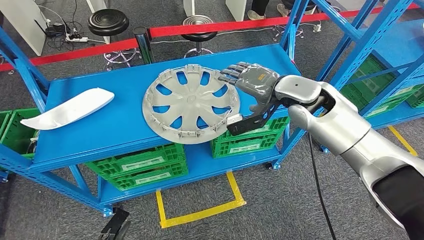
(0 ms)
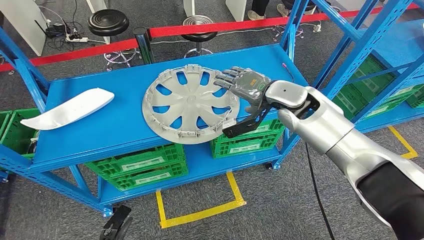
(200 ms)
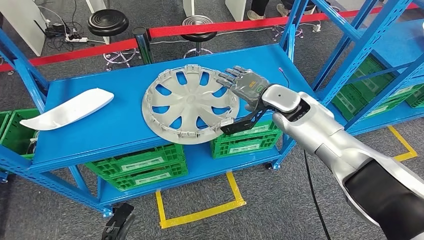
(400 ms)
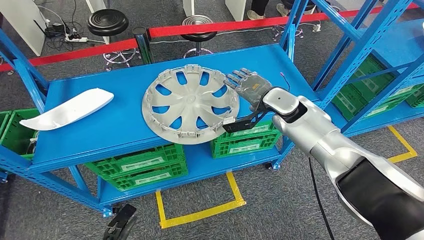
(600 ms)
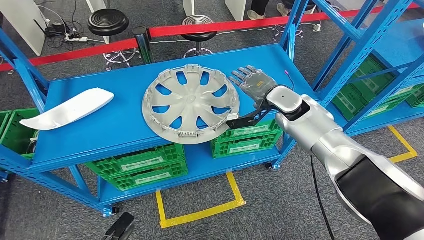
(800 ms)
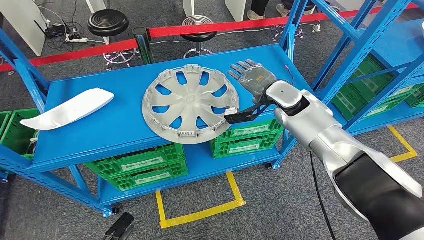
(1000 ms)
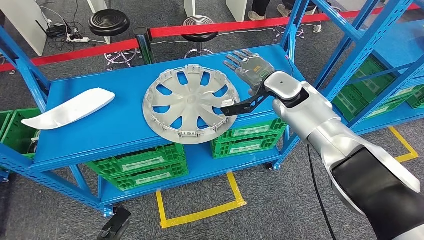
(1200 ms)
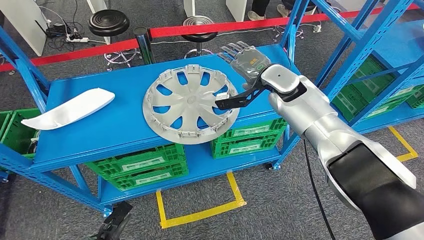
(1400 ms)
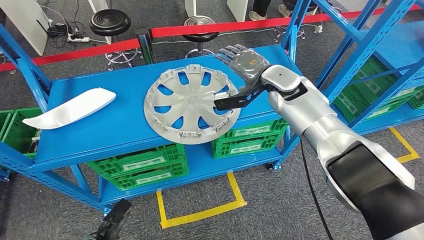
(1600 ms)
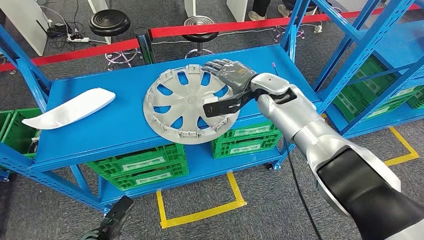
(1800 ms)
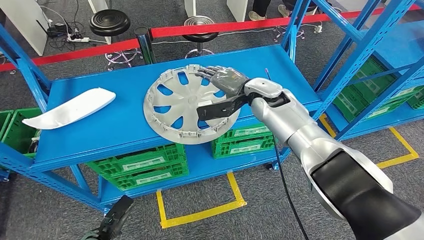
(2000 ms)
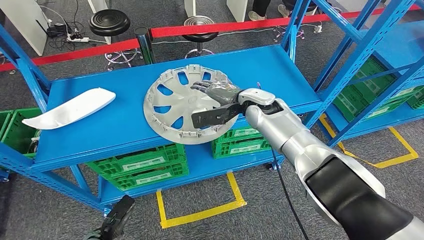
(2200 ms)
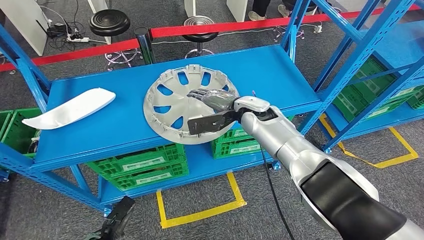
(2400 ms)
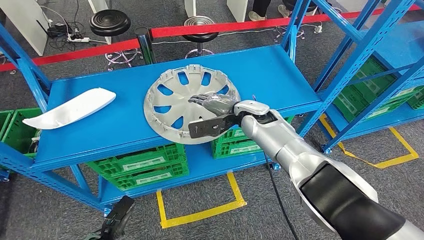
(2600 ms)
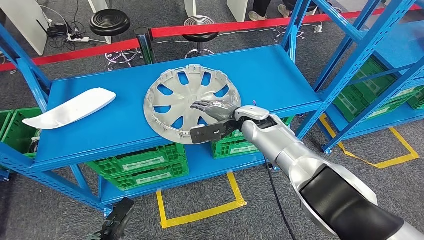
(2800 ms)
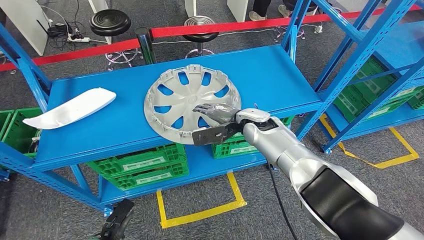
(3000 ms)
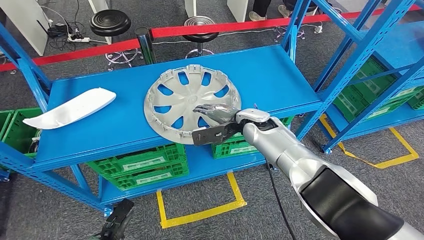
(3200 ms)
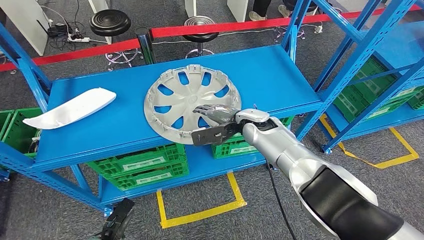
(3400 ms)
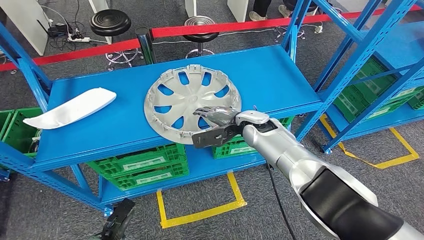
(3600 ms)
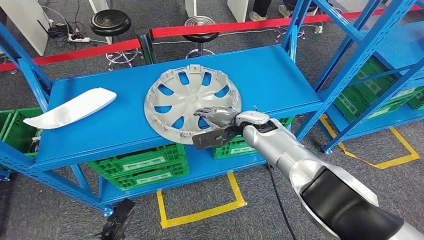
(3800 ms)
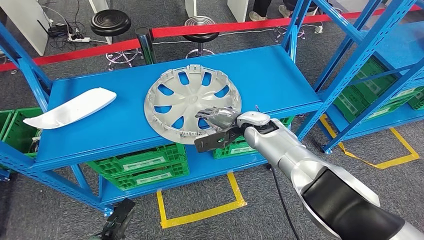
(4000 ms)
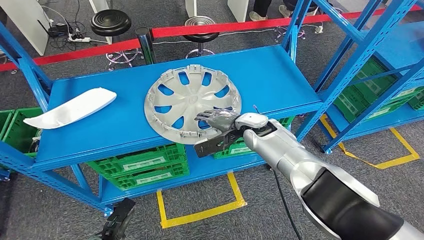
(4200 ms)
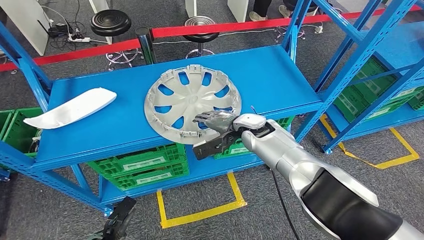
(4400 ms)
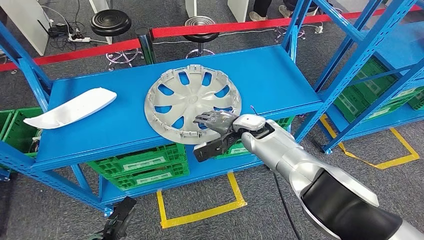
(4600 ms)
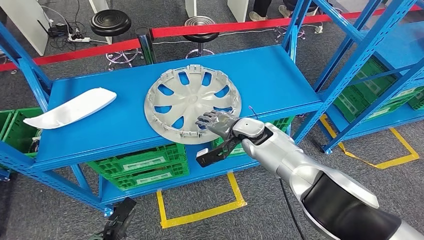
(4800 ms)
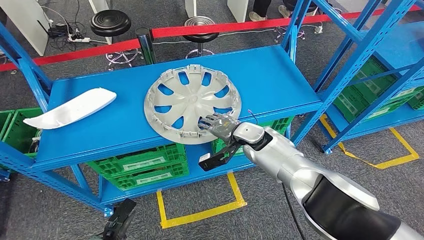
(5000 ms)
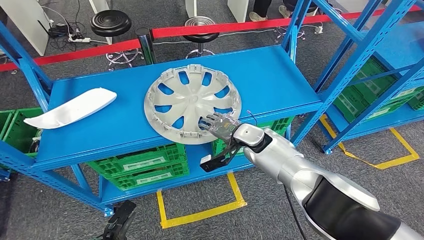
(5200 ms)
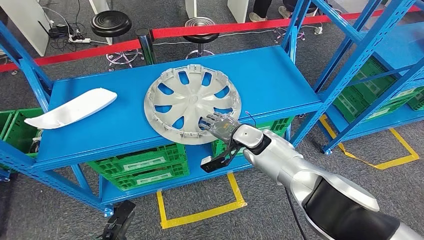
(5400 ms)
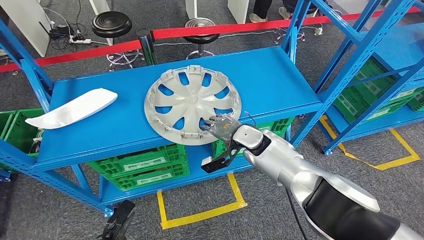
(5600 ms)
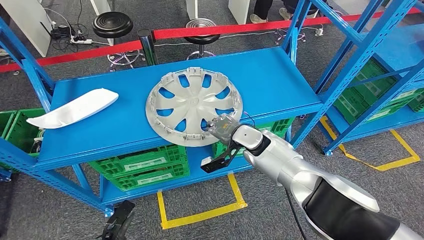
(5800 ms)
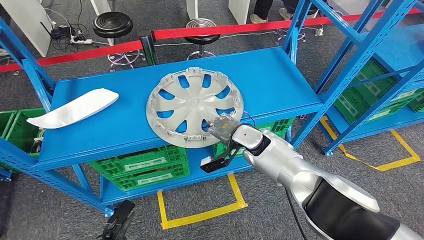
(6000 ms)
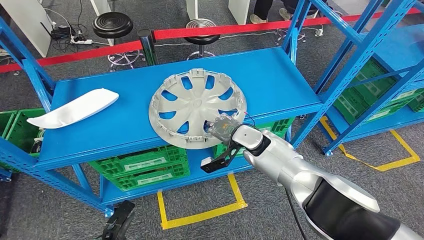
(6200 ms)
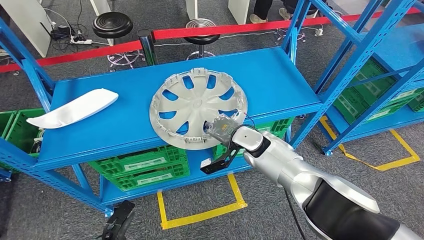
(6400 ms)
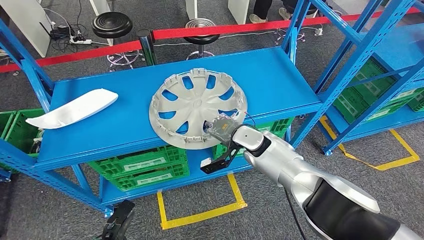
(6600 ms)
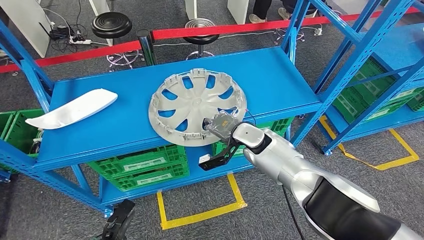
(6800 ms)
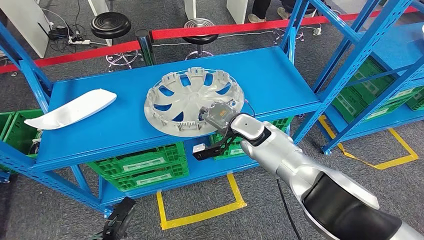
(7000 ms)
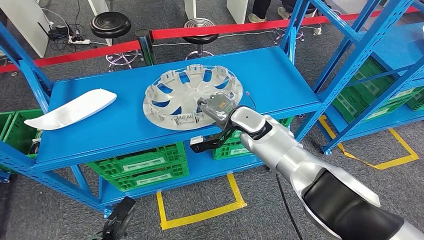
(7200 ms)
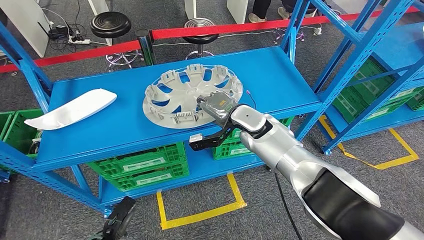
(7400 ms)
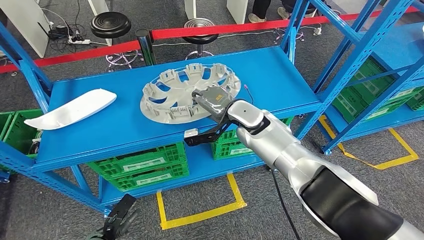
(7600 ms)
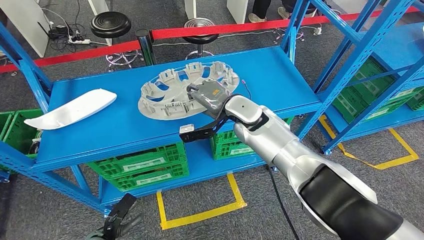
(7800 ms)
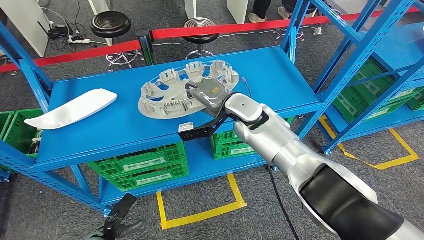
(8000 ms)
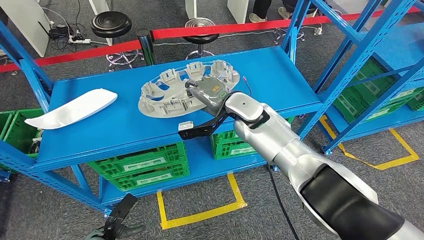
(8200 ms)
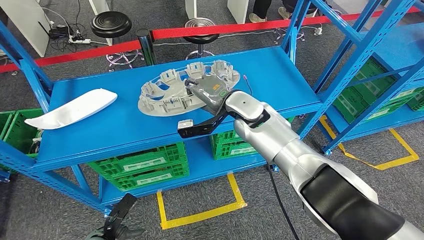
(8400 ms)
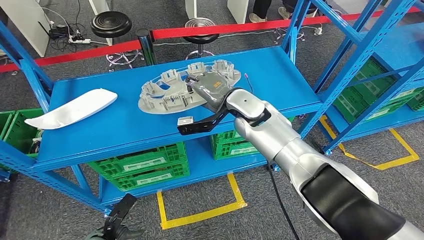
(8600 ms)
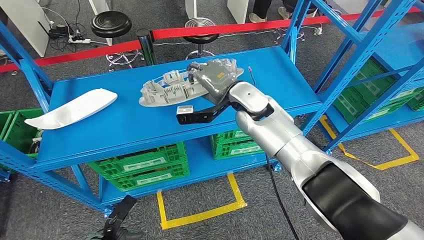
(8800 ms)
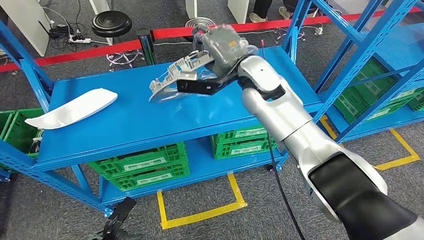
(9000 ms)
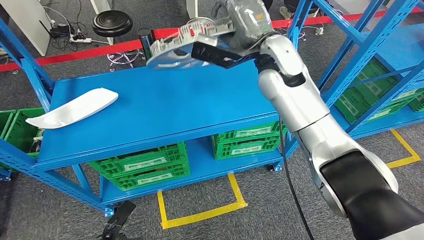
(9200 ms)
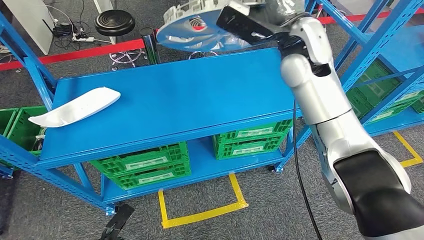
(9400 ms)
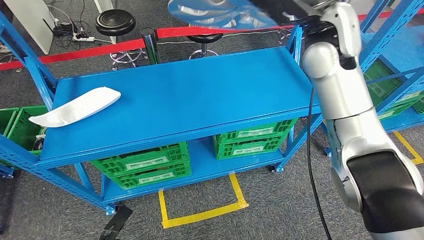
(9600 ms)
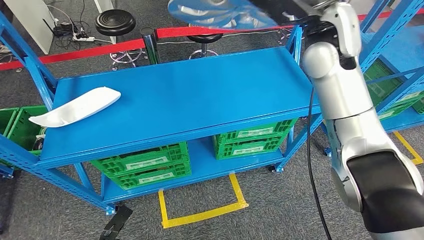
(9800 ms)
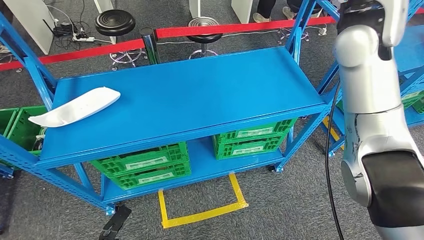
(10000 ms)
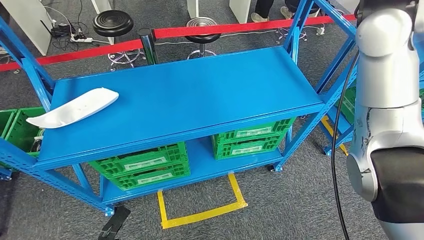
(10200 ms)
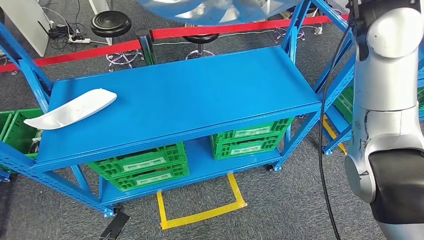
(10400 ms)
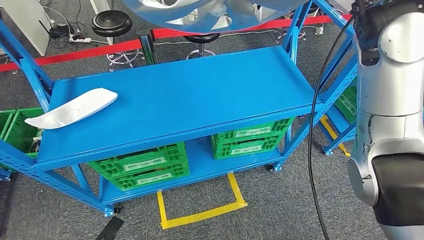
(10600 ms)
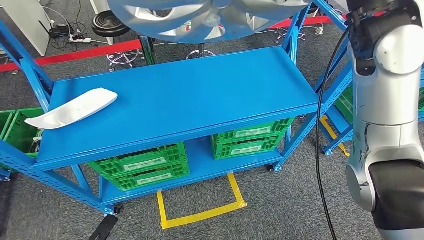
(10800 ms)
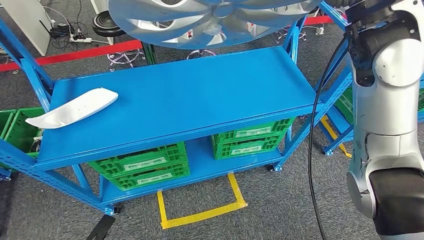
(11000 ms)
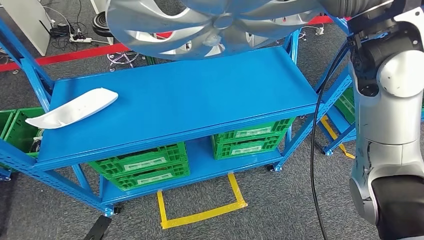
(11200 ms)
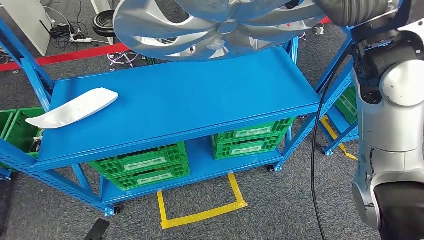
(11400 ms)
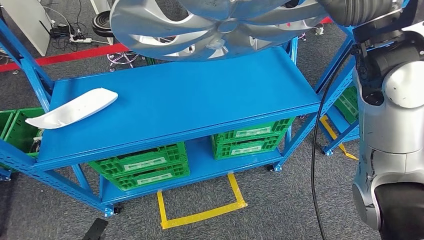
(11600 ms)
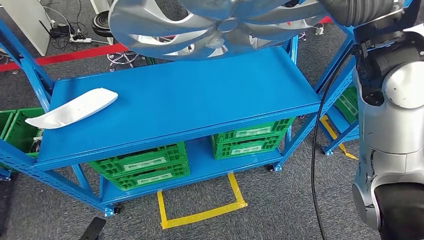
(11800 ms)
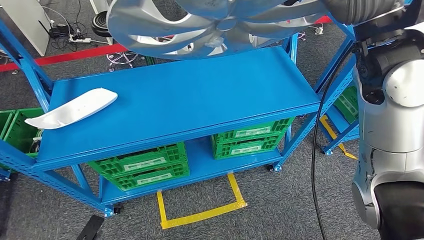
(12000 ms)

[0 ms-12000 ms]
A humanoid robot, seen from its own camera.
Step, 0 ms to 10800 ms: Pick up the small component from the shelf.
1600 ms to 3000 ms: The right hand goes some 10 cm downward and to the left.
3000 ms to 4400 ms: The hands make only small movements.

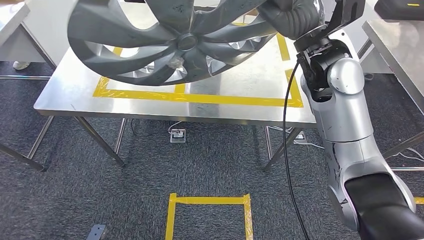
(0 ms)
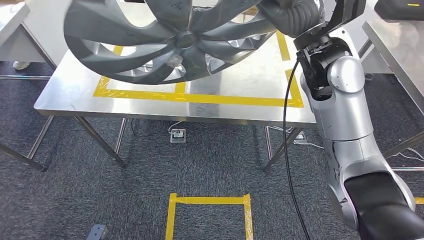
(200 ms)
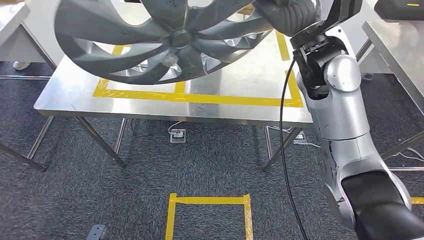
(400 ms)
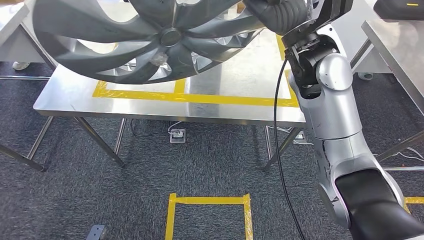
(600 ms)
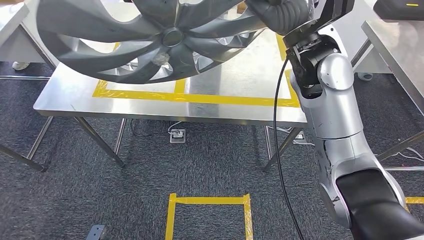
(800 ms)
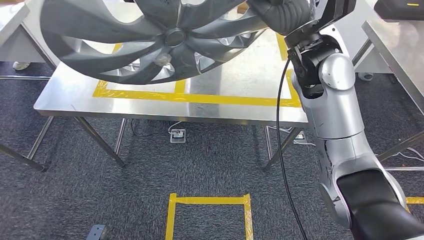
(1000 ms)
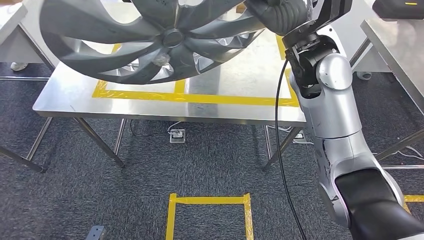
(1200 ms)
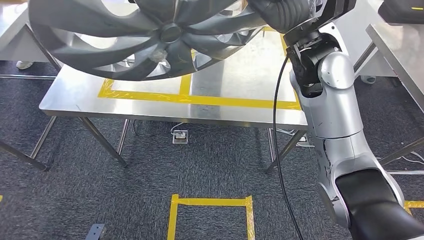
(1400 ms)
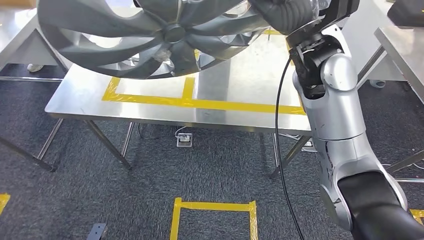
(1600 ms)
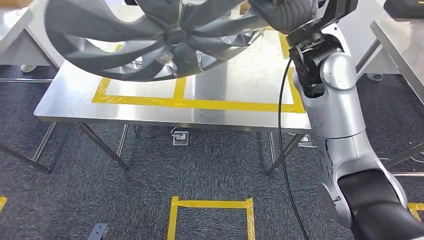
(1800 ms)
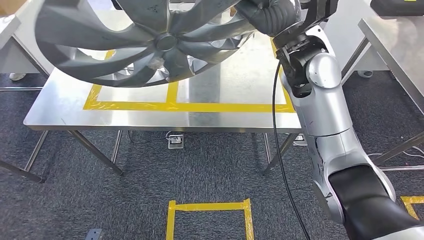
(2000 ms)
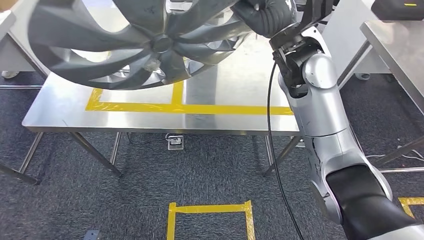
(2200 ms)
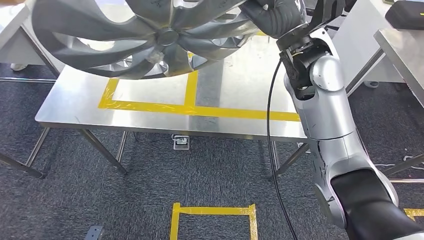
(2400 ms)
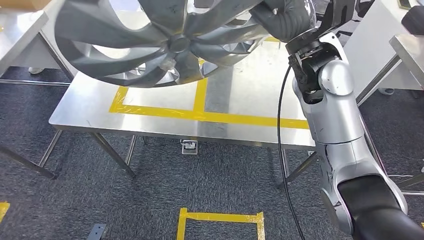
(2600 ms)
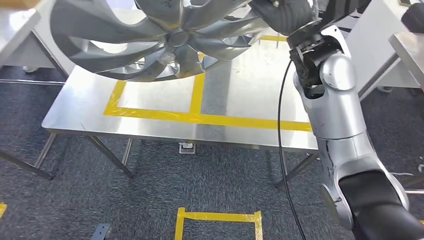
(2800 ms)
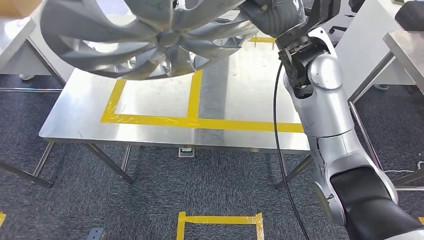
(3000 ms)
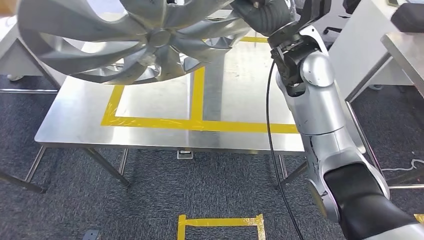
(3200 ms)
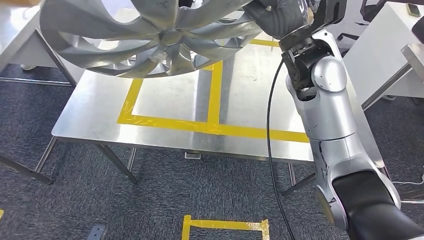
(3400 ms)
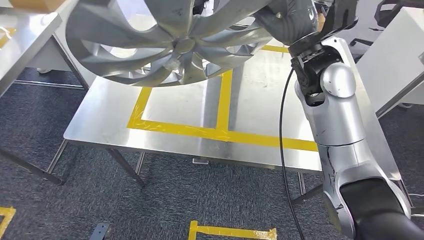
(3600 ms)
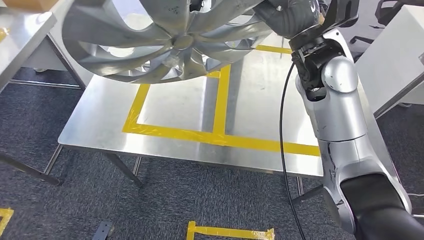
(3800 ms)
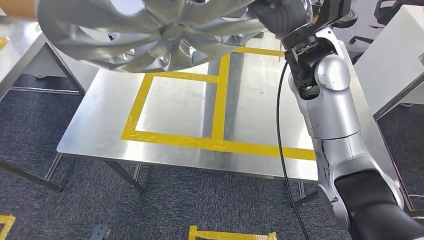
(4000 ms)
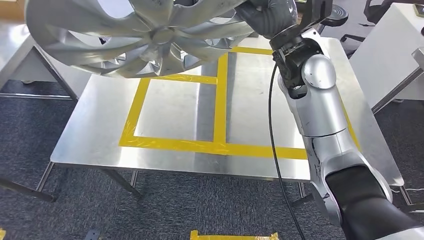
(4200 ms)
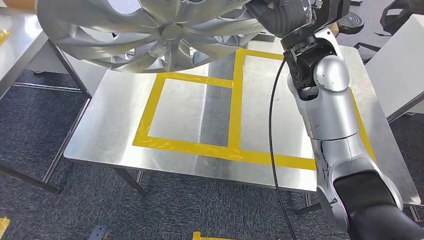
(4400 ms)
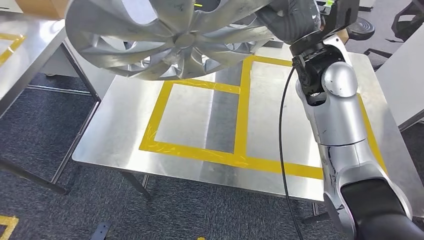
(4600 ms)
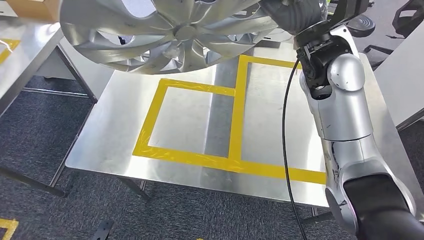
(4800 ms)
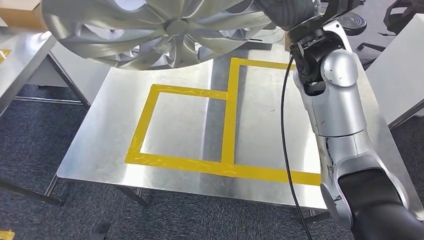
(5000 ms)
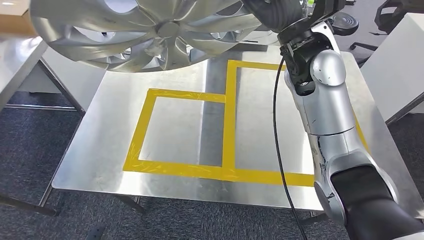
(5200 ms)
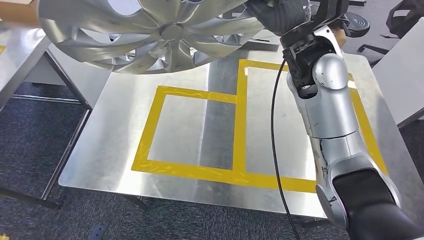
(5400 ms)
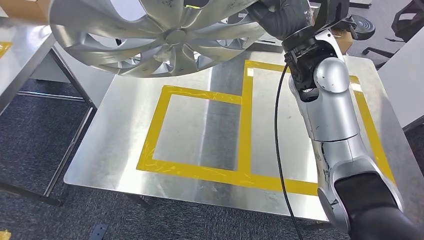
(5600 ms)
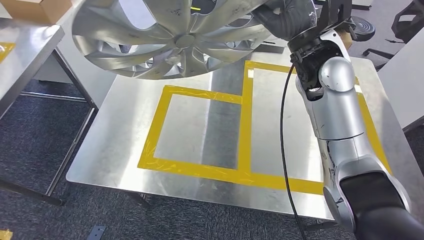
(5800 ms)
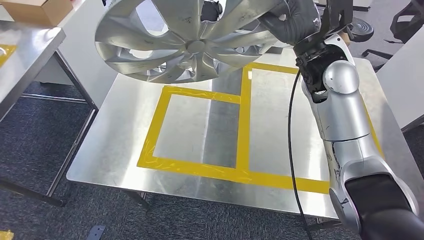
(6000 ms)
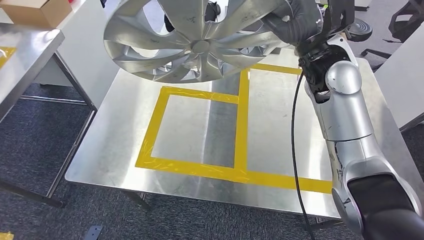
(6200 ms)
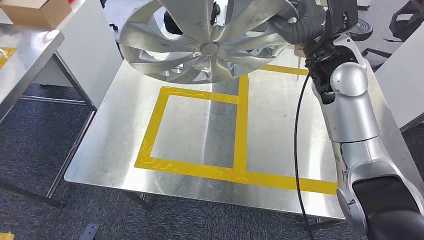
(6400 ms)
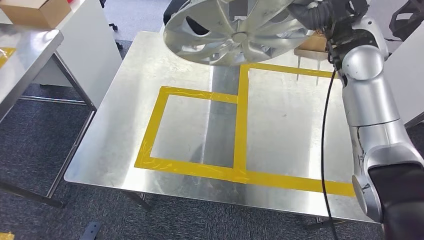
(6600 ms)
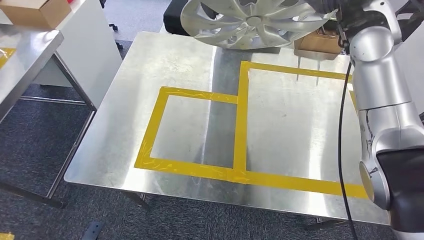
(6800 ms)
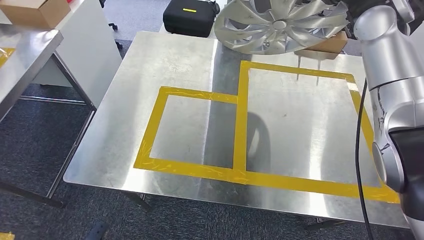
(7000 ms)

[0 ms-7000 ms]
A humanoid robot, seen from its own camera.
Step, 0 ms to 3000 ms: Move the small component to the workbench.
